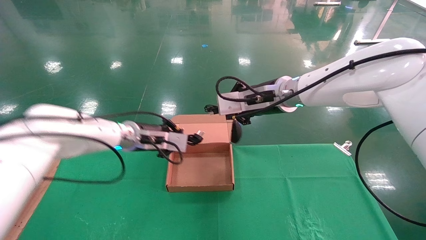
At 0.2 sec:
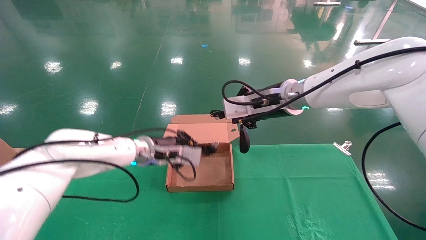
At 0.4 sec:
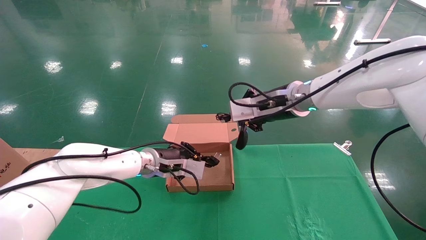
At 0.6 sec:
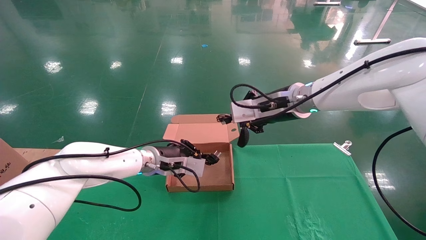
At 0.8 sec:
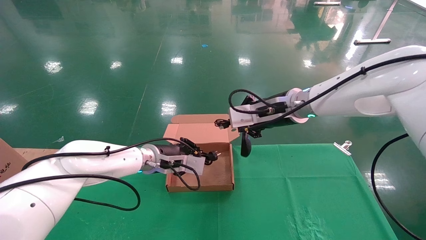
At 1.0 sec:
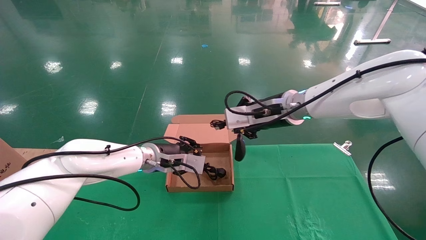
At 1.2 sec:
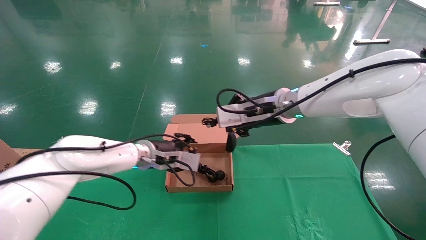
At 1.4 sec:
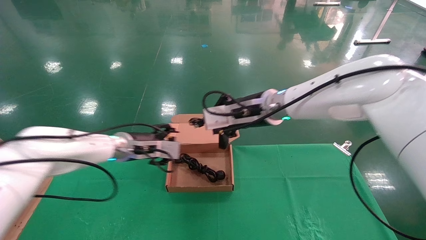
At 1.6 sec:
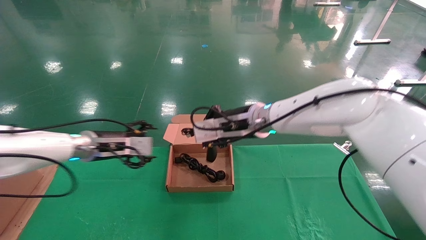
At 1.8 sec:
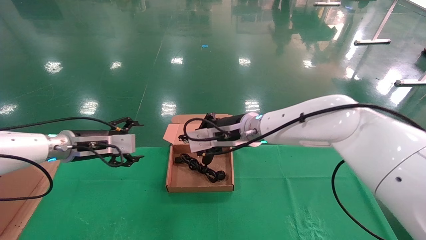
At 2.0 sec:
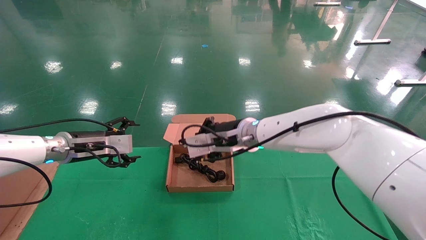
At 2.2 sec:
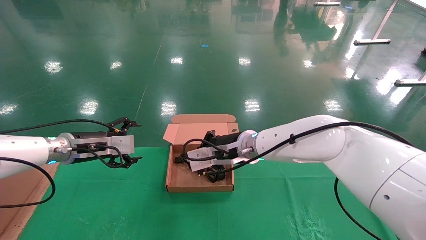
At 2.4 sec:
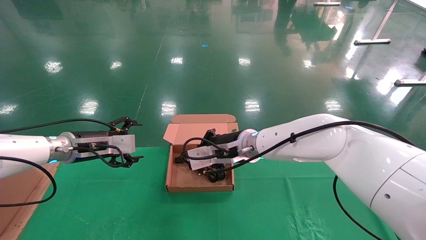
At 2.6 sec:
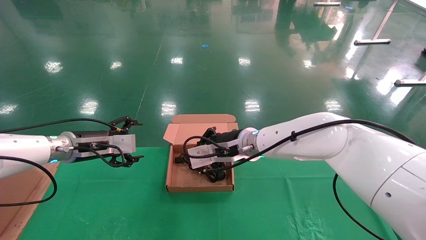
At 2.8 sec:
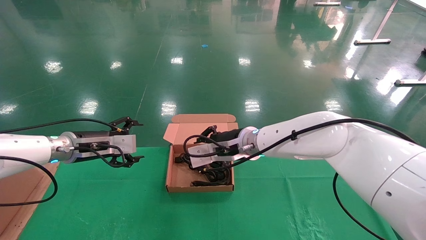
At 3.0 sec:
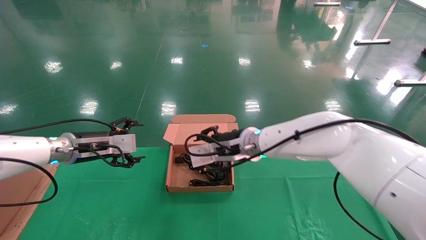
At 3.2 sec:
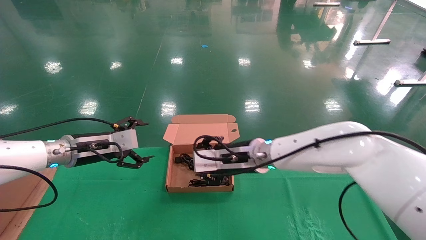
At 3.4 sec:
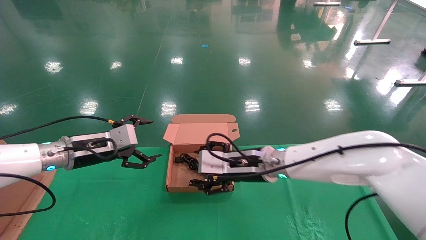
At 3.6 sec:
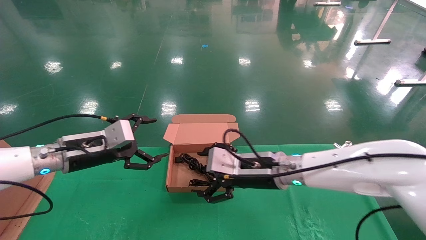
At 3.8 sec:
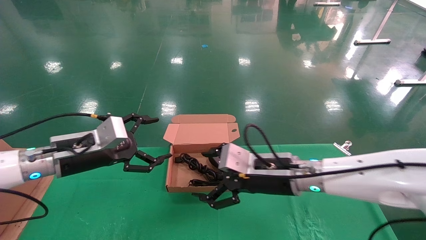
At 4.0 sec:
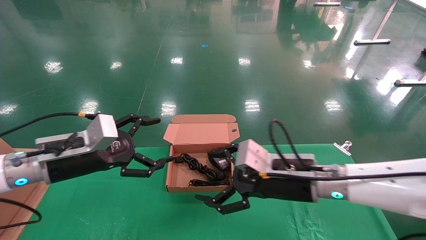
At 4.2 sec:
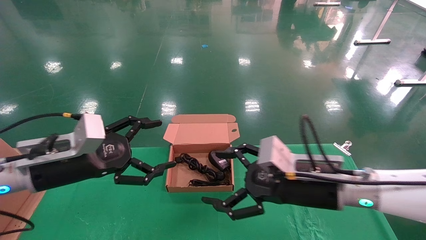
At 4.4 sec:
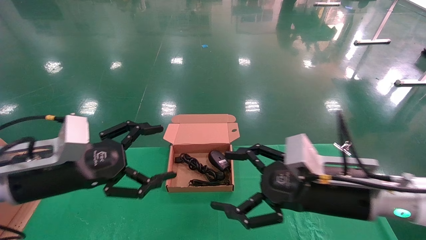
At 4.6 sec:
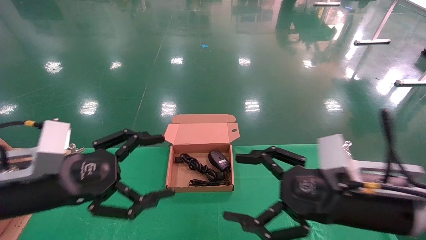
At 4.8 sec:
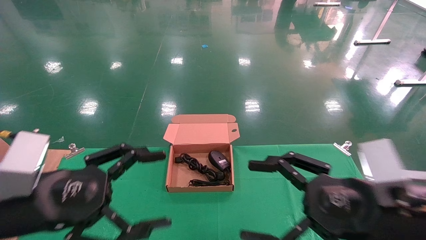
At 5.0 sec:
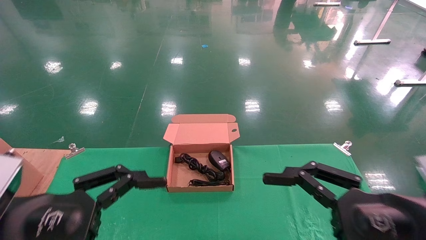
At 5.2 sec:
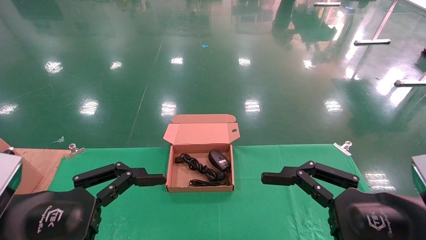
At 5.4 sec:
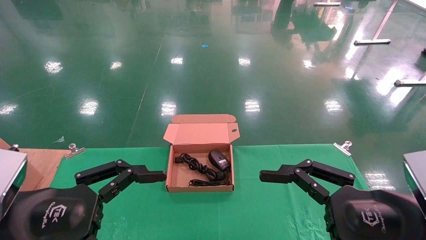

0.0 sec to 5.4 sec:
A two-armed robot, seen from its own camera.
Step, 0.0 sec to 4.4 sec: Place the mouse and power cord into the box.
0.0 sec to 1.4 sec: The left gripper opens.
1.4 sec to 2.8 sec: The right gripper travels downward by about 10 cm, while the left gripper heads to the left, covering some 10 cm, and opens its fingers.
2.8 sec to 4.0 sec: The left gripper goes roughly 10 cm backward. The right gripper moves backward and to the right, approximately 15 cm, and opens its fingers.
4.0 sec to 5.4 sec: The right gripper moves backward and to the right, about 20 cm; the left gripper heads backward, covering roughly 15 cm.

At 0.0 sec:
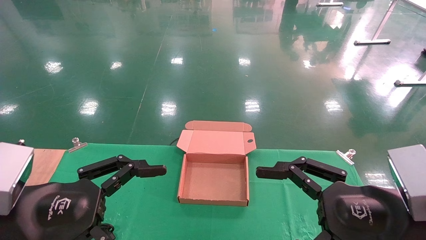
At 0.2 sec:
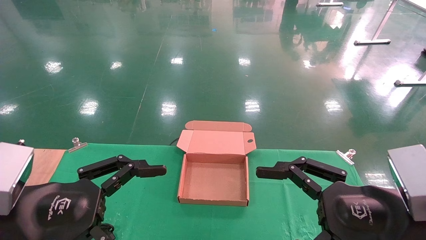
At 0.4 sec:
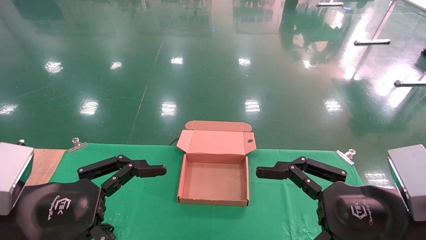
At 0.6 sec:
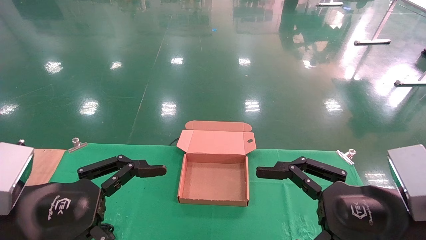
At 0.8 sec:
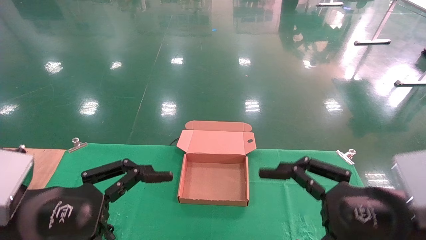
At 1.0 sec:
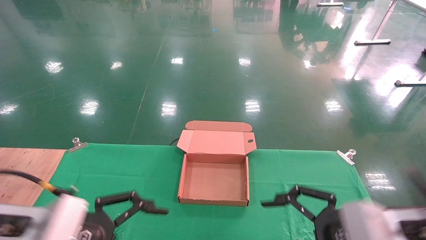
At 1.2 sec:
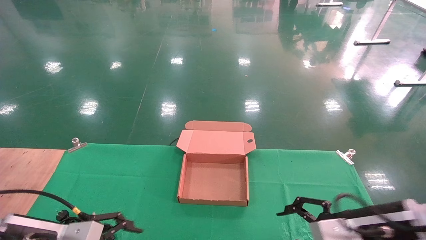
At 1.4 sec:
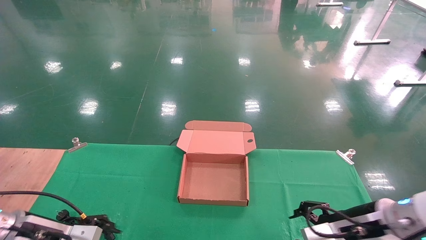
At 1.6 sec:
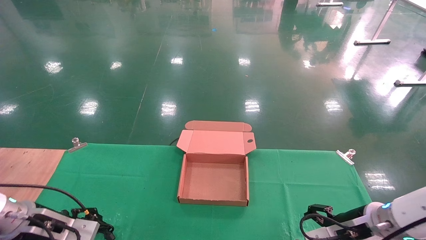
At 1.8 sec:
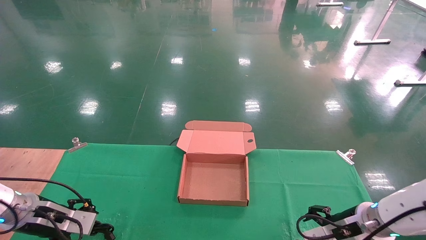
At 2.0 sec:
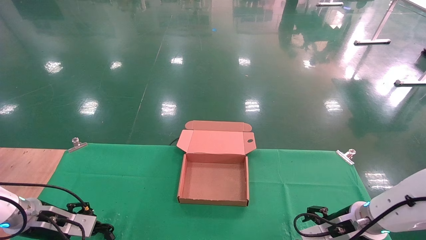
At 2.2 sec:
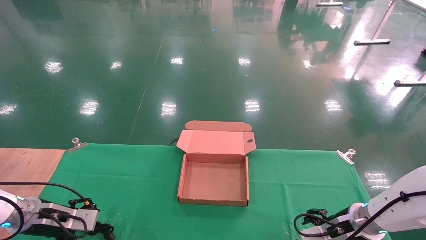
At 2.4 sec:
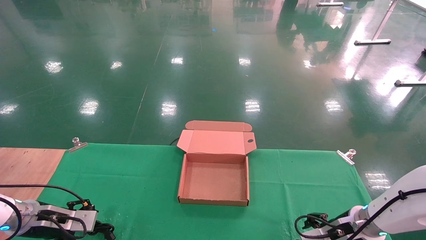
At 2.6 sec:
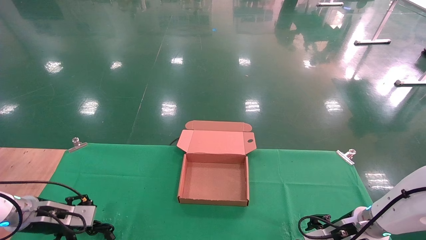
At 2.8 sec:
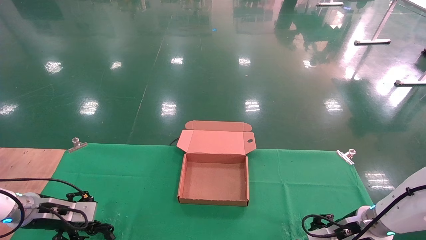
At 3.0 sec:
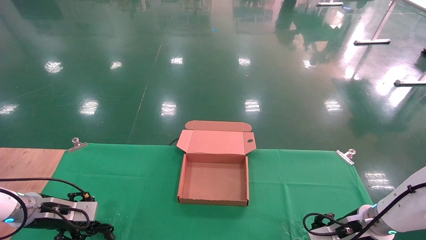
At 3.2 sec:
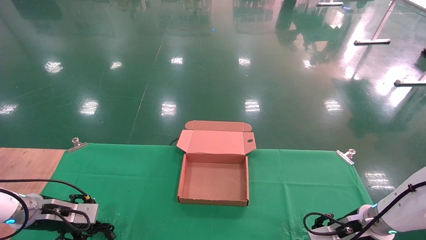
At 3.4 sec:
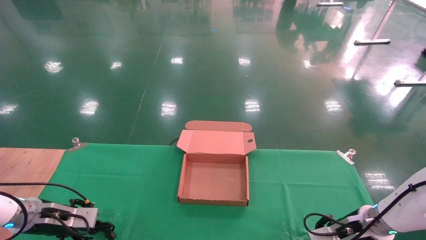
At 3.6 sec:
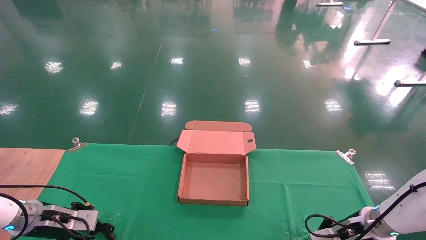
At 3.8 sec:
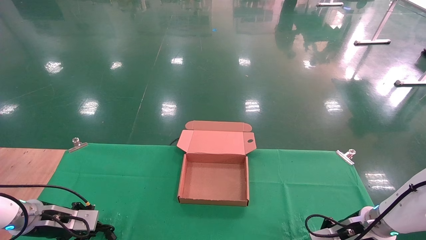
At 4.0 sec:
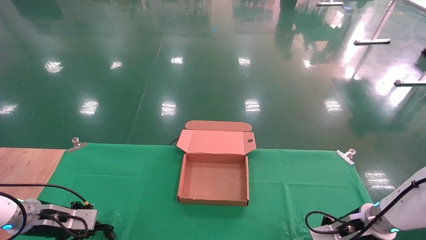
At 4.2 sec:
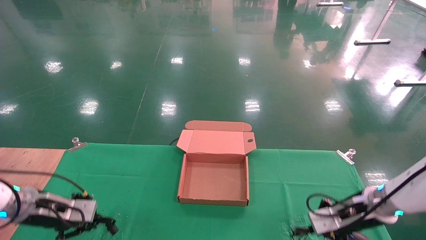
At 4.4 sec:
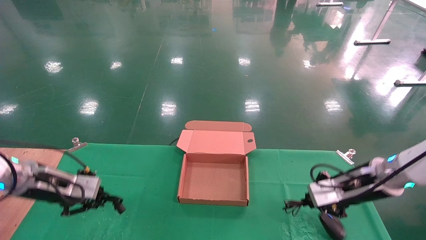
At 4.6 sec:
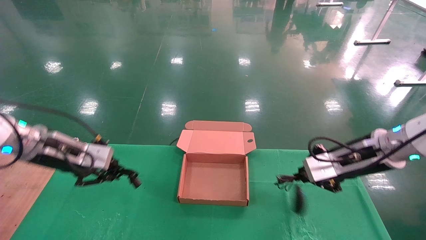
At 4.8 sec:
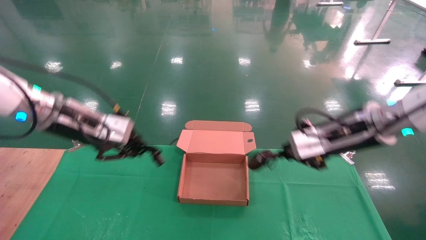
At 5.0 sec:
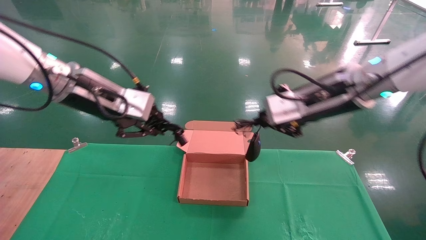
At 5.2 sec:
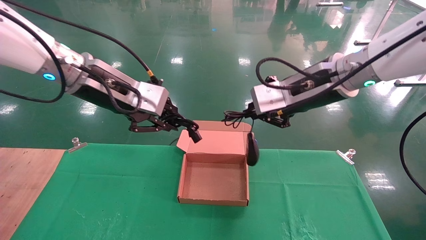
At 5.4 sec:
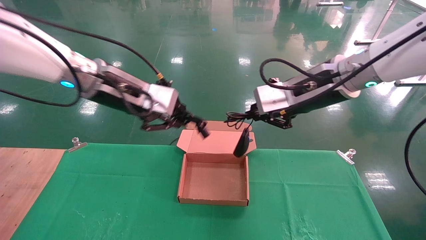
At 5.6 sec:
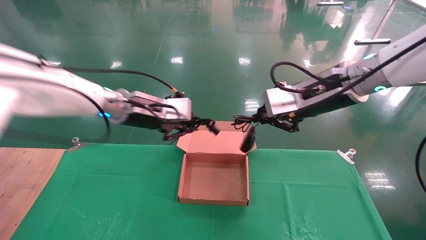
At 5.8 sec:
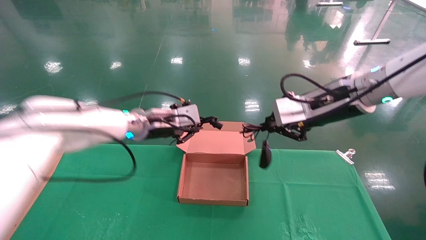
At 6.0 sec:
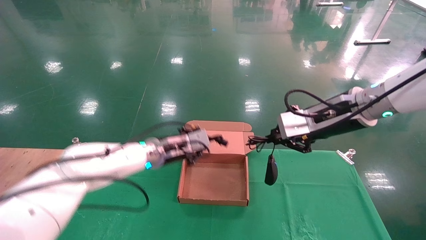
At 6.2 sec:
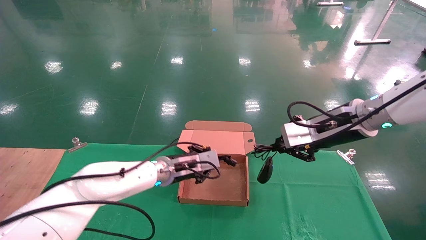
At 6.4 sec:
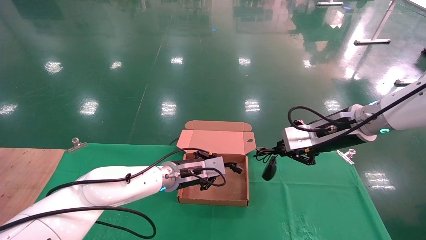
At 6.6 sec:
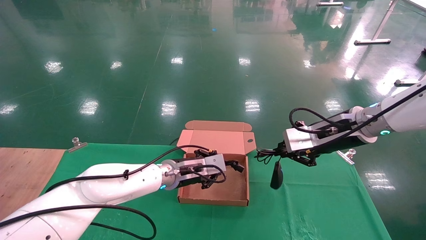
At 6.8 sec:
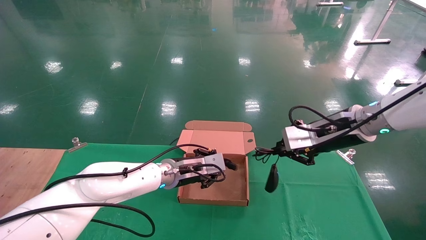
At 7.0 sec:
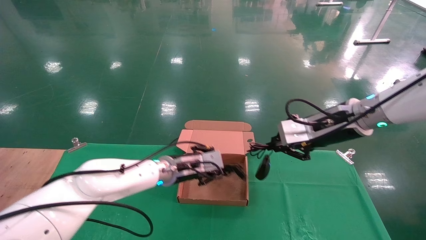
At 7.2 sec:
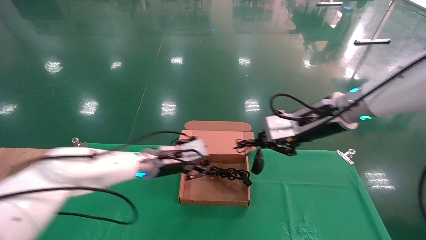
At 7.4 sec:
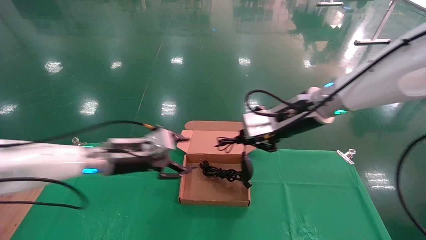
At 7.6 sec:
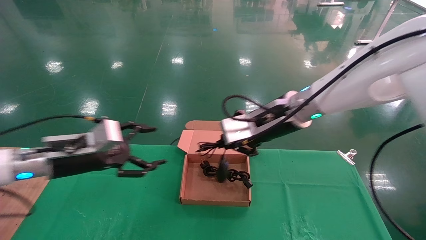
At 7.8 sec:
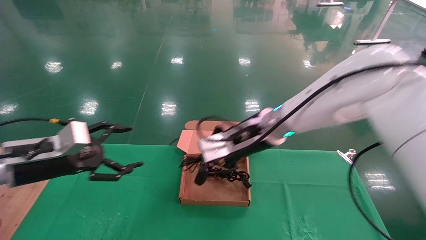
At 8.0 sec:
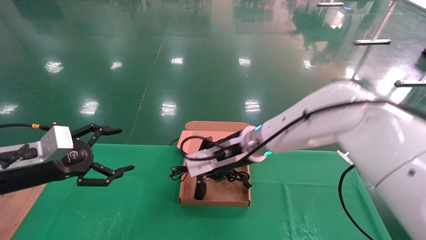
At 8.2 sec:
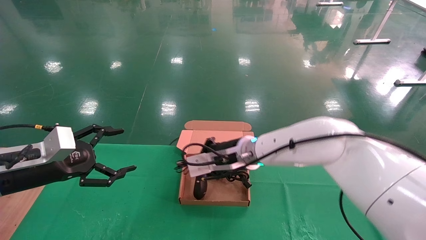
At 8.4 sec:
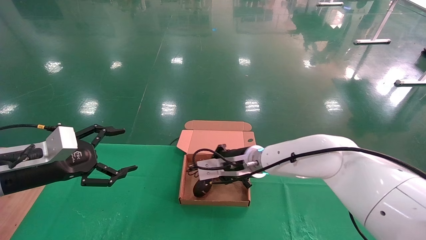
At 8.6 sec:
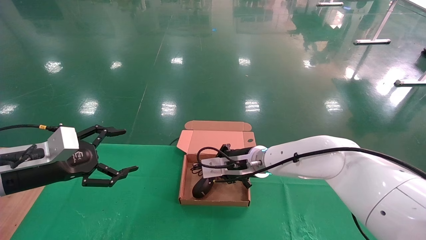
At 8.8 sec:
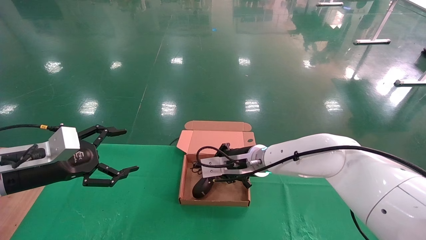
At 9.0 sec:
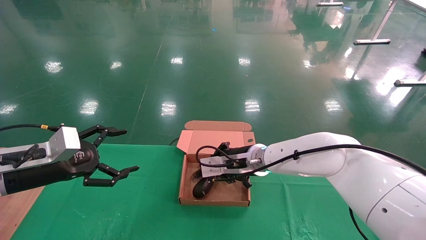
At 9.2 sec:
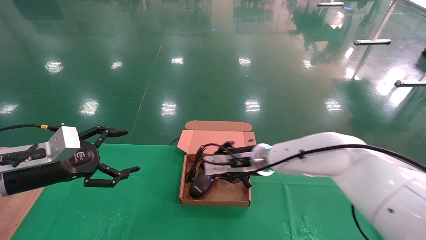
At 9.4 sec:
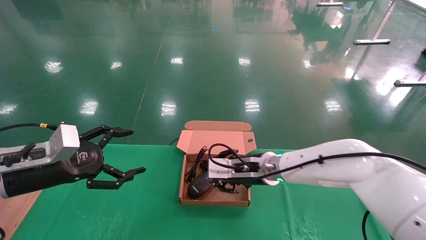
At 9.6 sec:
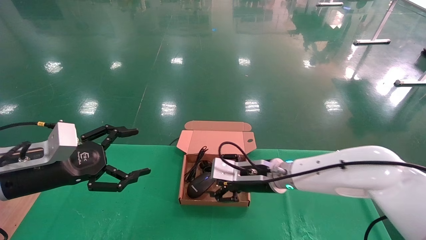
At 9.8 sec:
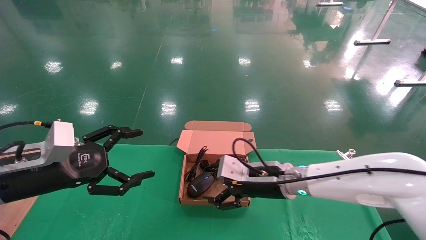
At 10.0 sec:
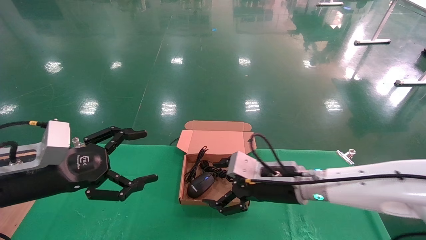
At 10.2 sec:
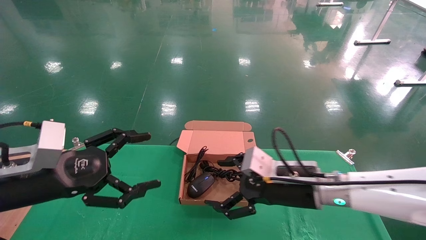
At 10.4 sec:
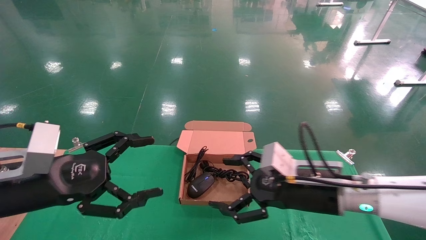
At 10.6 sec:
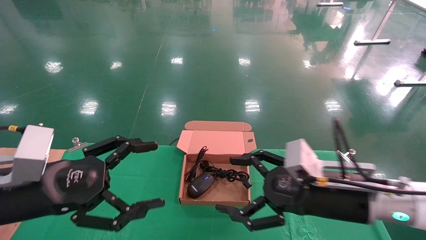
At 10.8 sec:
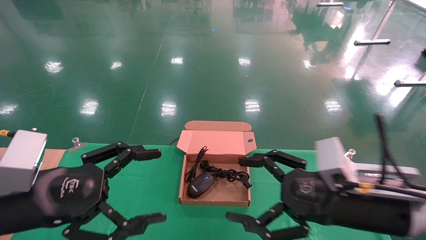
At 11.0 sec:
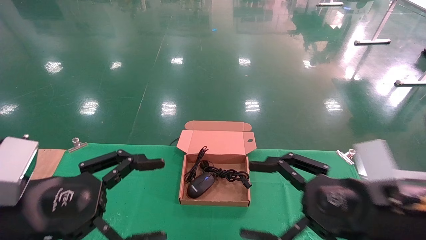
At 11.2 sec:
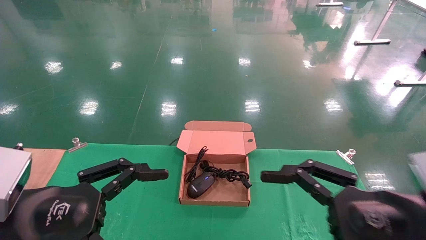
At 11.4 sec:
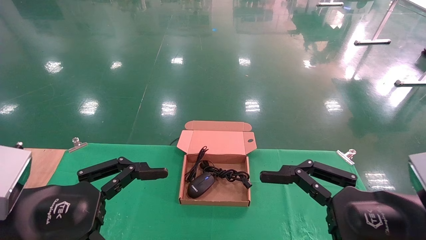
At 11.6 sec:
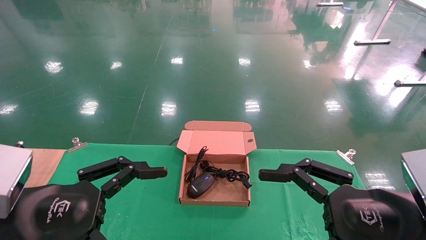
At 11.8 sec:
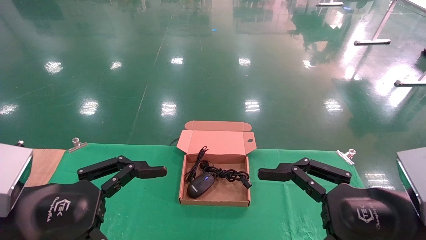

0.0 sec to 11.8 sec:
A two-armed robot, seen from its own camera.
Step, 1.2 sec to 4.2 sec: Grab and lift both the mouse and power cord from the accessory packaging area at the same time.
Step, 4.4 sec to 8.6 sec: Place the mouse and power cord into the box.
0.0 sec to 1.4 sec: The right gripper heads forward and downward, covering roughly 15 cm. The left gripper heads forward, downward and to the left, covering some 20 cm.
1.4 sec to 3.0 sec: The left gripper shifts approximately 10 cm forward and to the left. The right gripper shifts some 10 cm forward and downward.
3.0 sec to 4.4 sec: The two grippers go some 10 cm upward. The left gripper closes. The right gripper closes.
4.4 sec to 6.0 sec: The left gripper travels to the right and forward by some 25 cm; the right gripper heads upward and to the left, covering roughly 15 cm.
6.0 sec to 7.4 sec: The right gripper travels to the left by about 10 cm. The left gripper heads to the left and backward, covering about 10 cm, and opens.
7.4 sec to 8.8 sec: The right gripper moves downward, to the left and forward, some 20 cm, while the left gripper heads to the left and backward, covering about 15 cm, and opens up.
8.8 sec to 10.4 sec: The left gripper heads backward and to the right, covering approximately 10 cm. The right gripper is displaced backward and to the right by about 20 cm, and opens its fingers.
10.4 sec to 11.8 sec: The left gripper is displaced backward by about 5 cm, while the right gripper heads backward and to the right, covering about 15 cm.
